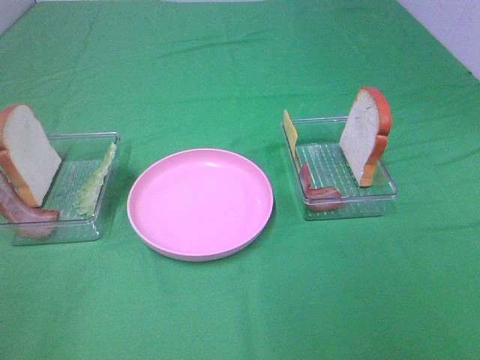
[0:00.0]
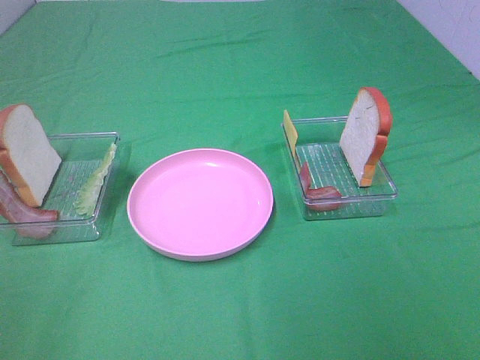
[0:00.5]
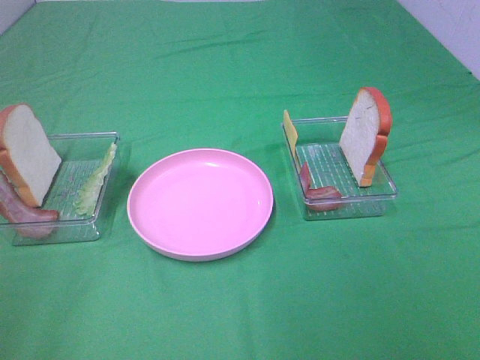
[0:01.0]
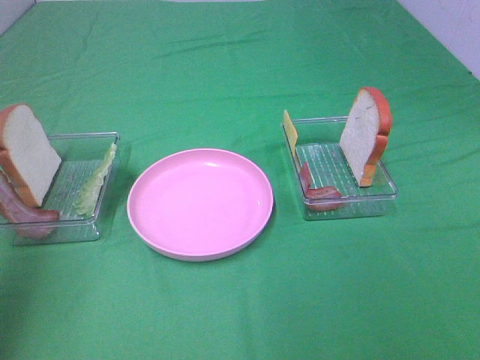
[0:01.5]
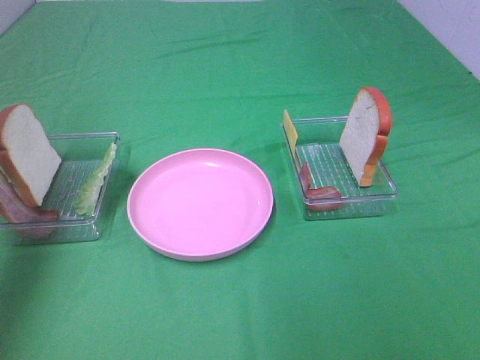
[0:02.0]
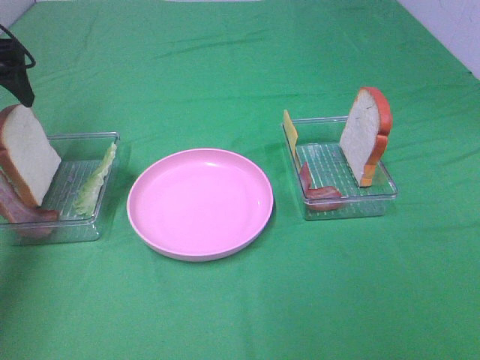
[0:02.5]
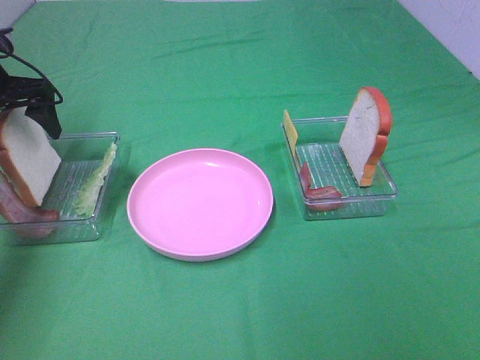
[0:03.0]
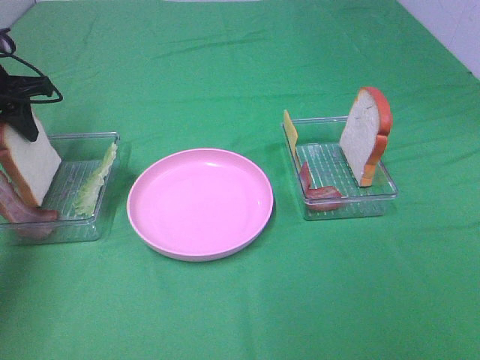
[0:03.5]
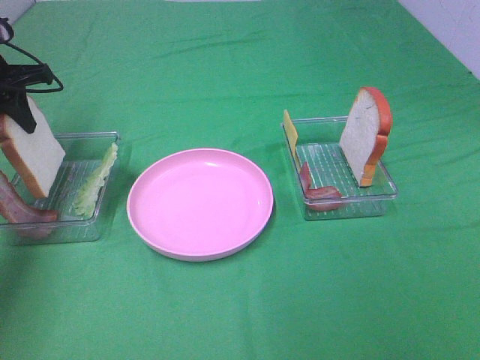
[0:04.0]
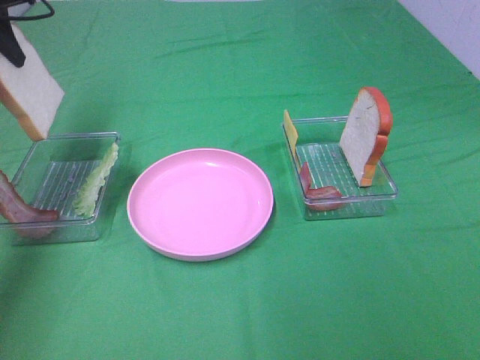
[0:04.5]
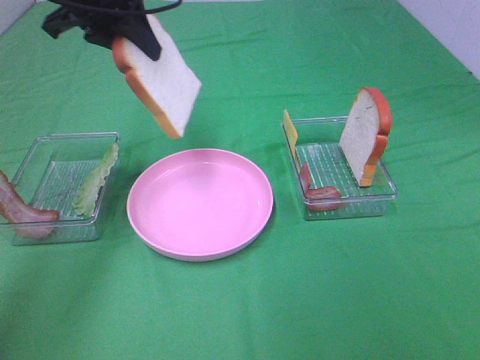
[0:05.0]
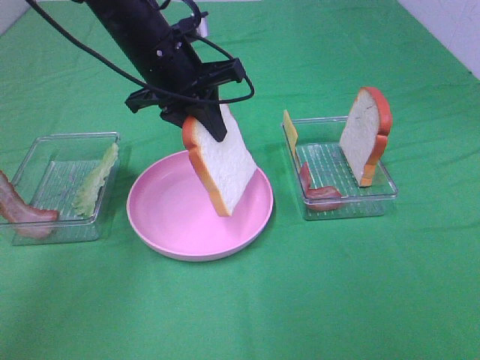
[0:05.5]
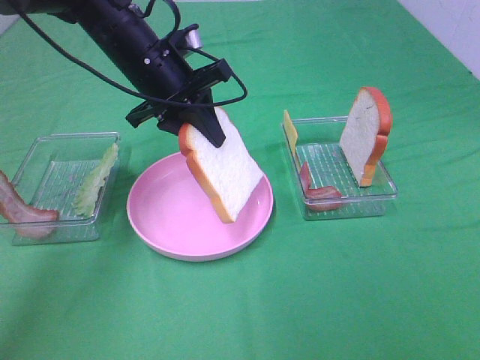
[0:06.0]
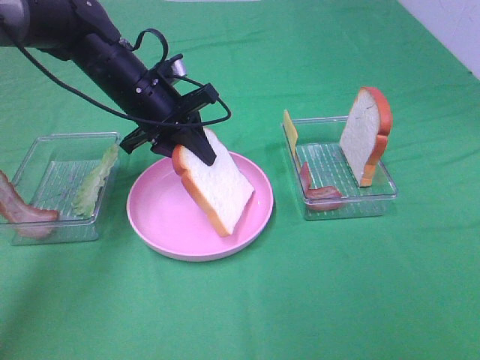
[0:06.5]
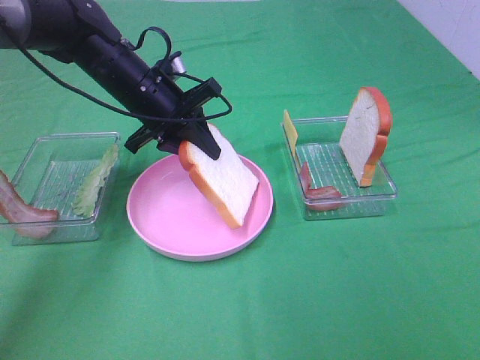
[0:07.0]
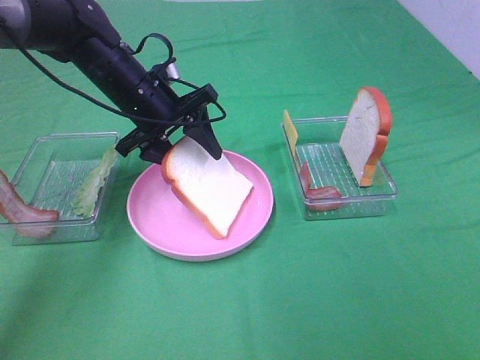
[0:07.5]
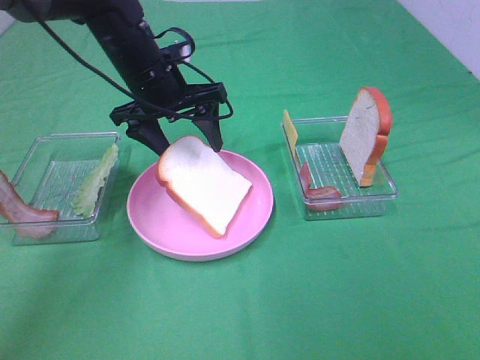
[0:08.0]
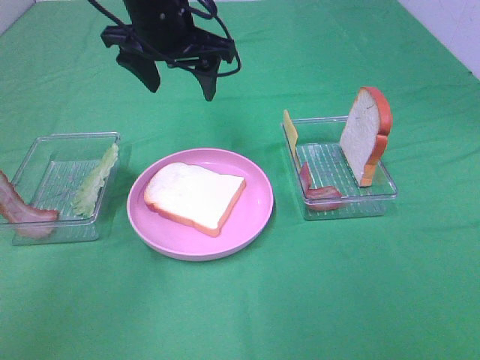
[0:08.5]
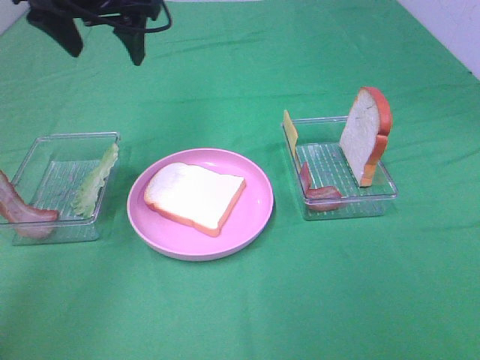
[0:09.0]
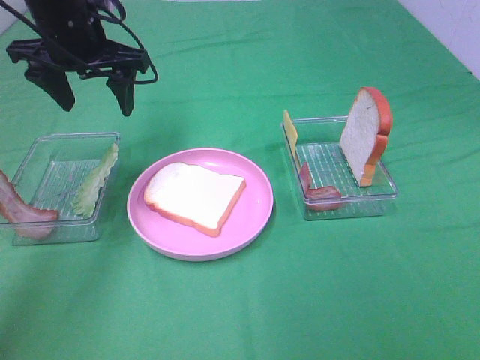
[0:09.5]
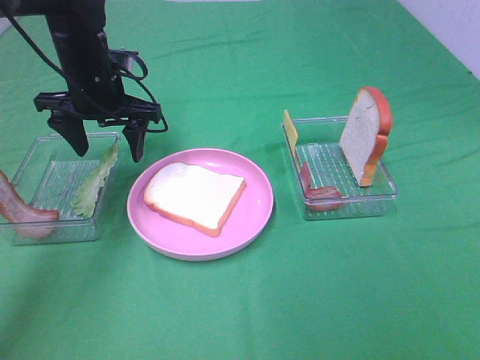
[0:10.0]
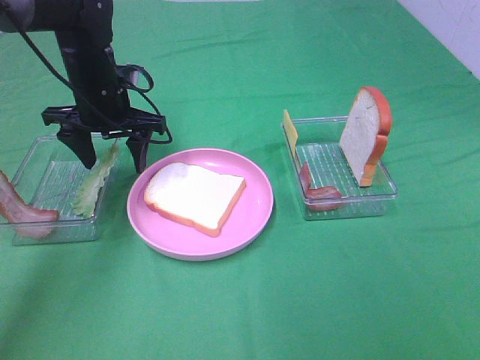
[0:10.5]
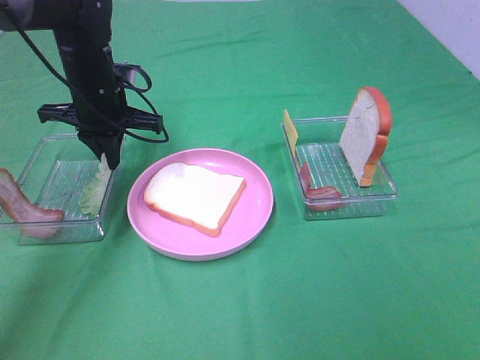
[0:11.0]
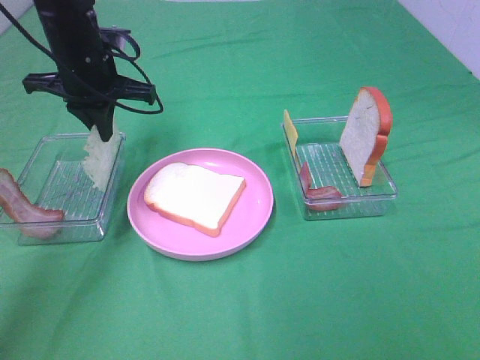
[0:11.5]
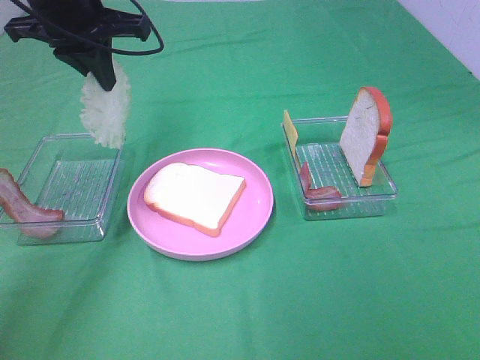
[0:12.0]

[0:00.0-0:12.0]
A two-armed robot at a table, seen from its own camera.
Task of the whole recording: Make sandwiches.
Step, 0:00.0 to 0:03.5: Left hand:grab the bread slice.
Step, 0:04.0 to 0:08.0: Left hand:place the bread slice on the plate.
Step, 0:08.5 to 0:11.0: Left hand:grab the lettuce slice.
0:00.0 to 0:02.0: The left gripper is displaced forward by roughly 30 cm.
0:02.0 to 0:04.0: The left gripper is displaced forward and downward by approximately 20 cm, and closes up.
0:04.0 to 0:06.0: The left gripper goes roughly 20 cm to the right.
0:06.0 to 0:08.0: The left gripper opens.
0:08.0 to 0:10.0: The left gripper travels to the left by roughly 10 cm, and travels upward and back again, approximately 10 cm each way.
0:10.0 to 0:12.0: The left gripper is displaced upward by some 10 cm, and closes up.

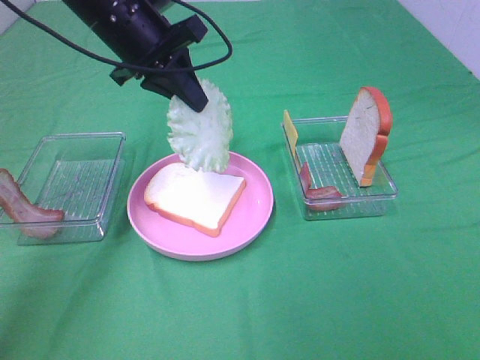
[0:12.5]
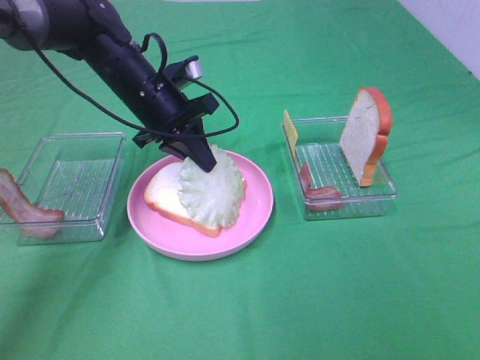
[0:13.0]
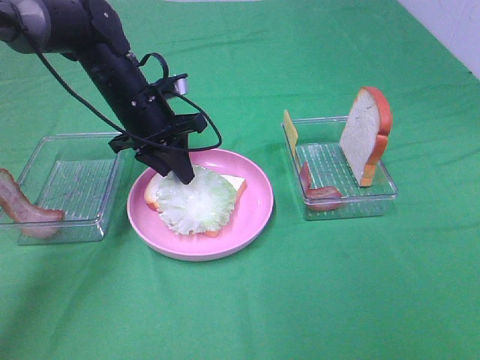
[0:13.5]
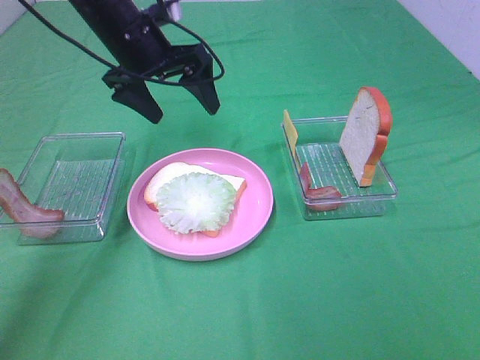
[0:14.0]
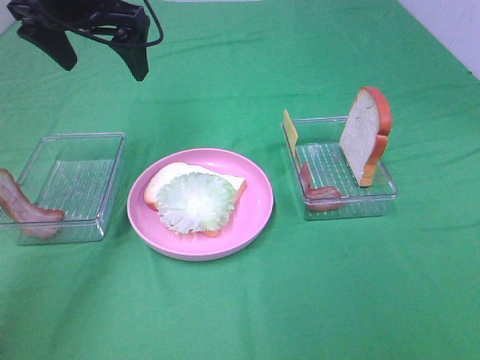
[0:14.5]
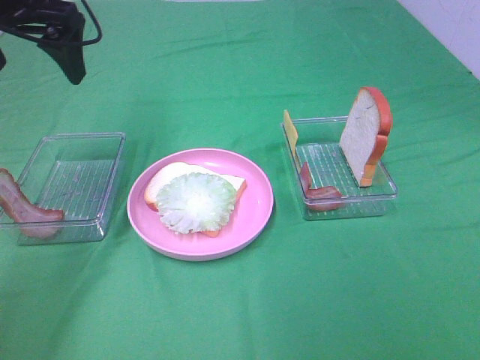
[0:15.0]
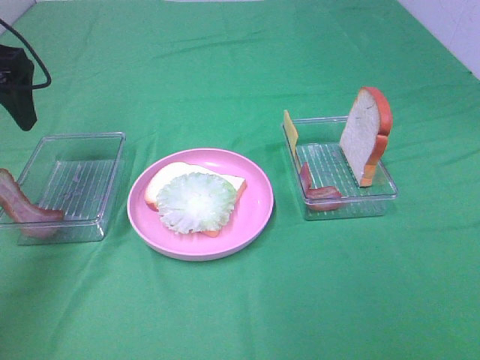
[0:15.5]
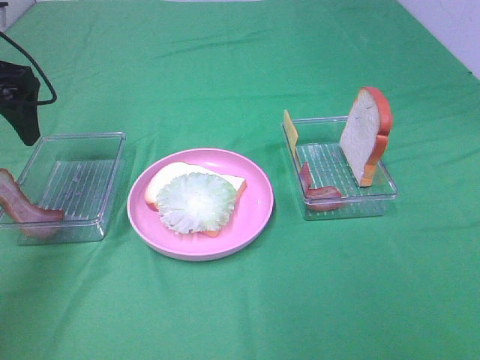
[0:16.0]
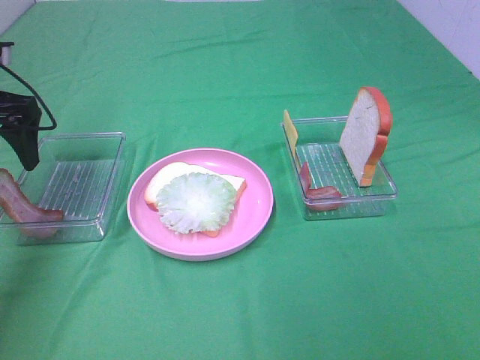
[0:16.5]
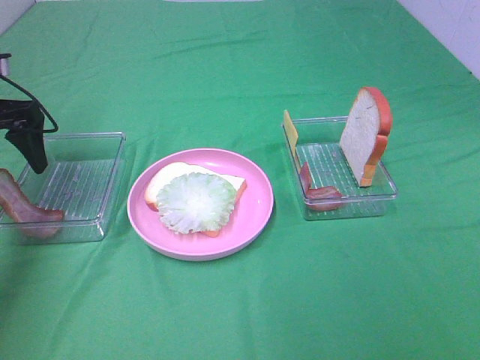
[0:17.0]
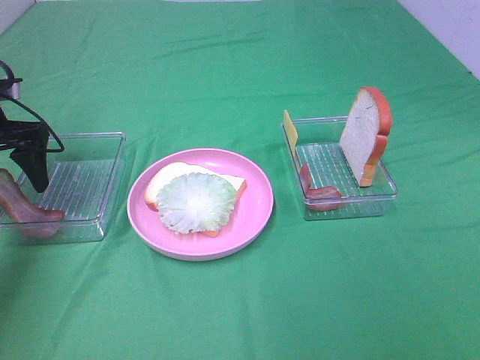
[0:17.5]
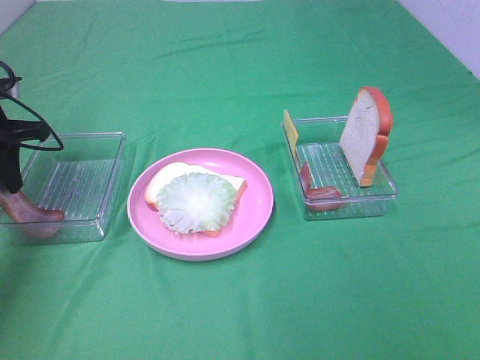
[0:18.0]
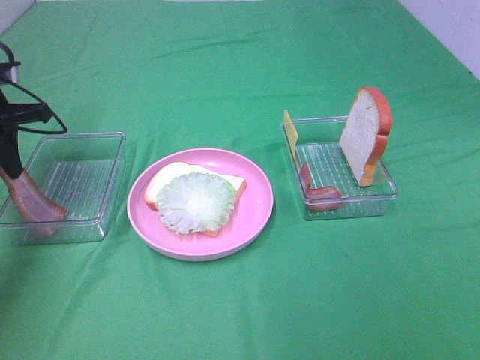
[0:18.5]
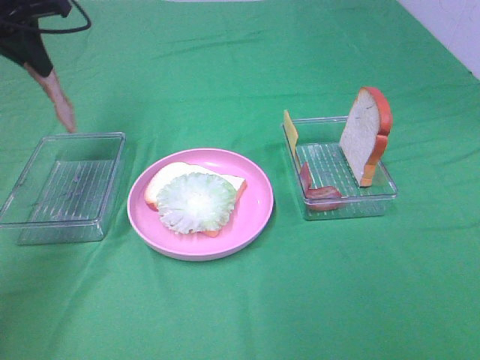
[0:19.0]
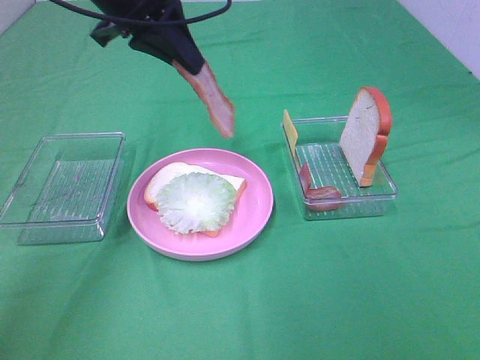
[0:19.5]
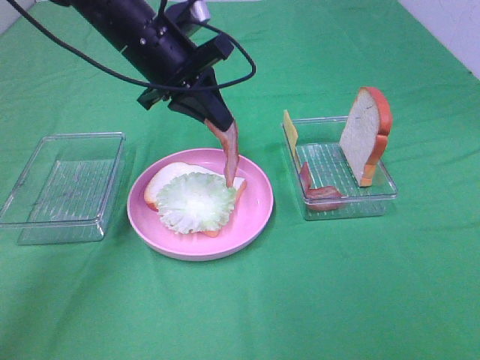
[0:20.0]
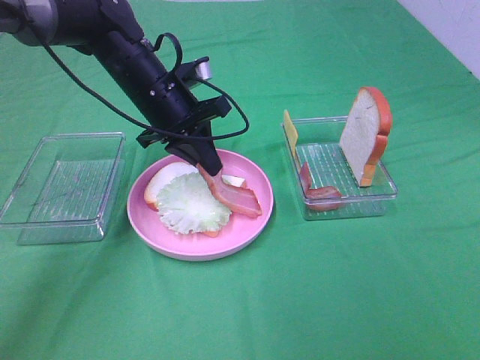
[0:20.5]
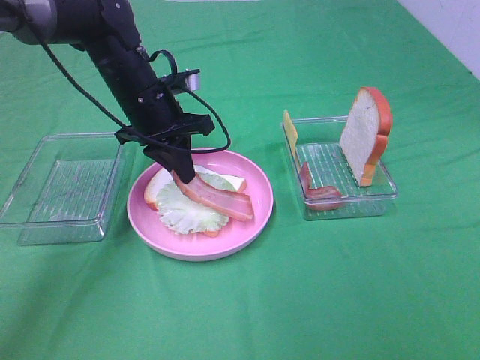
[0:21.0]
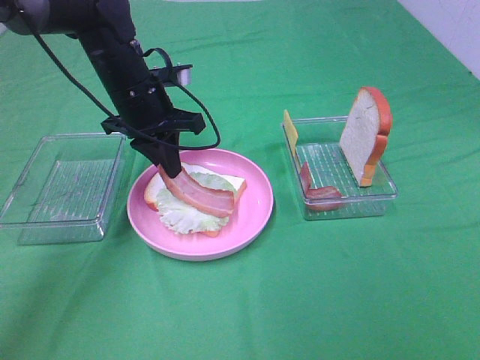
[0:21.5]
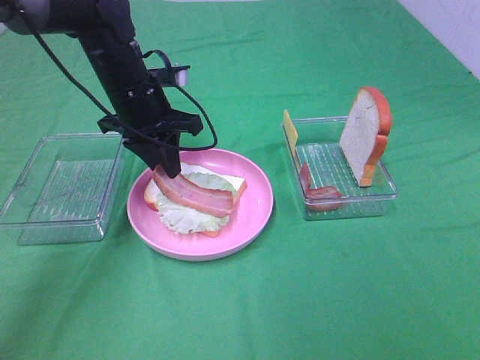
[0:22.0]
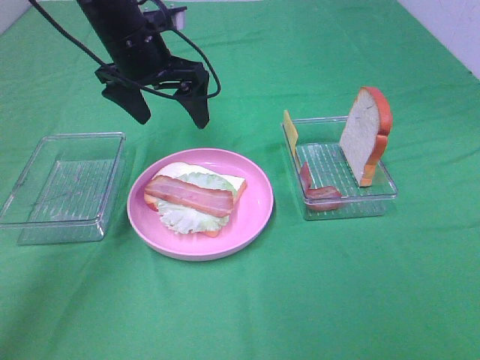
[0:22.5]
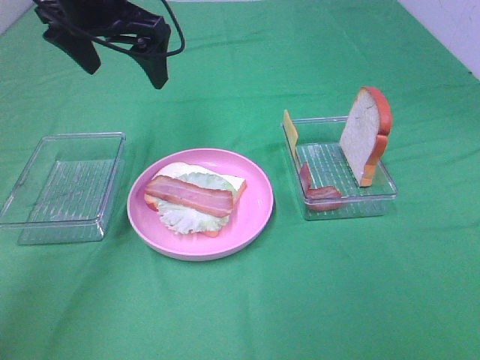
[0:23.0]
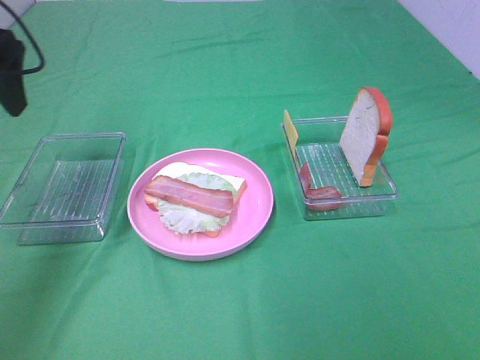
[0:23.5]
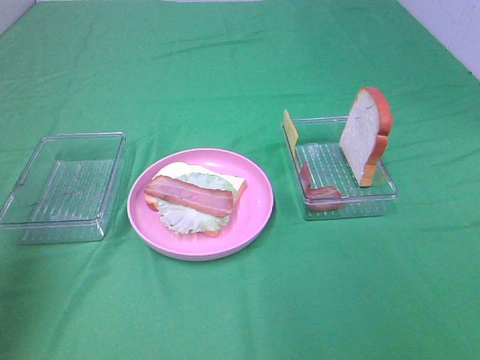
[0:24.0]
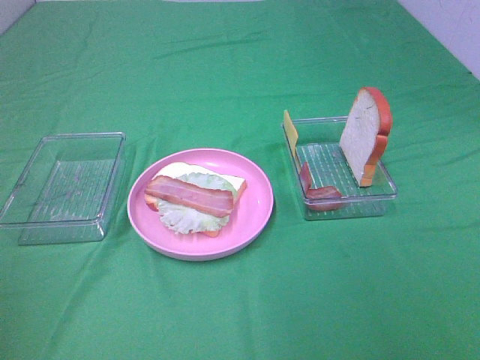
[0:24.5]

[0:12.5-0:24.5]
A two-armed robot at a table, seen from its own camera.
Task of the whole recording: Make sandwiches.
Step, 0:14.0 to 0:18.0: Left hand:grab the bacon.
Step, 0:18.5 to 0:22.0: Left hand:place bacon on lettuce slice.
0:12.5 to 0:14.5: The left gripper shifts about 10 cm upward and to the left, and opens its fingers.
0:14.5 to 0:16.5: The left gripper goes some 15 cm to the left and downward.
0:16.5 to 0:18.5: The left gripper closes up.
0:18.5 to 0:20.5: The left gripper is displaced to the right by some 20 cm.
0:20.5 to 0:22.5: The left gripper moves upward, roughly 5 cm, and opens up.
0:22.5 to 0:24.5: The left gripper travels backward and to the left by approximately 40 cm.

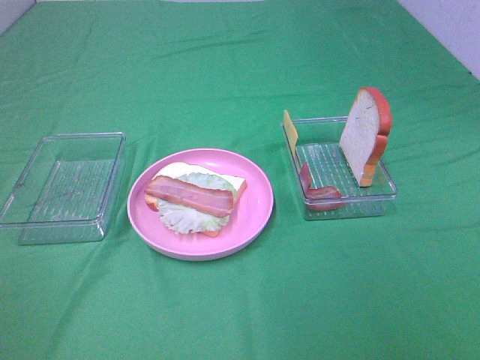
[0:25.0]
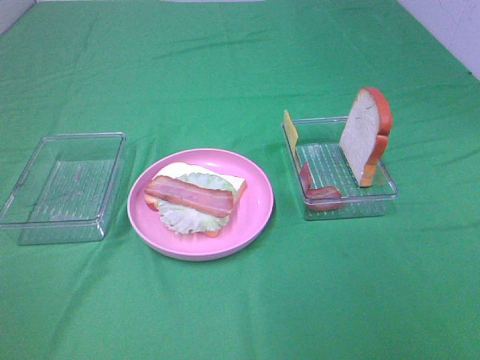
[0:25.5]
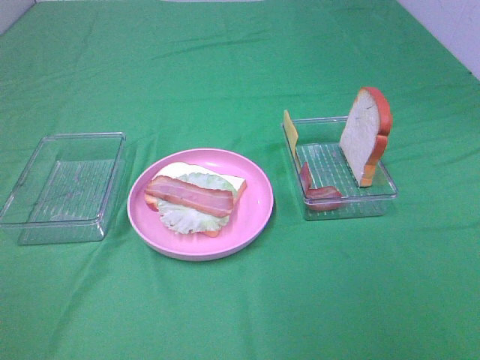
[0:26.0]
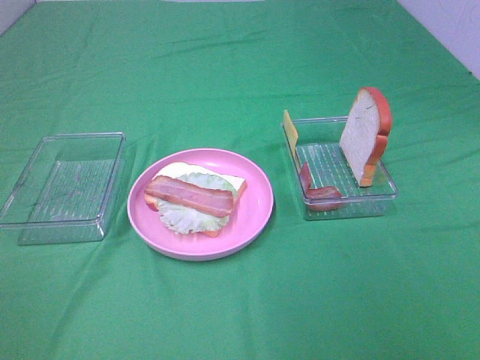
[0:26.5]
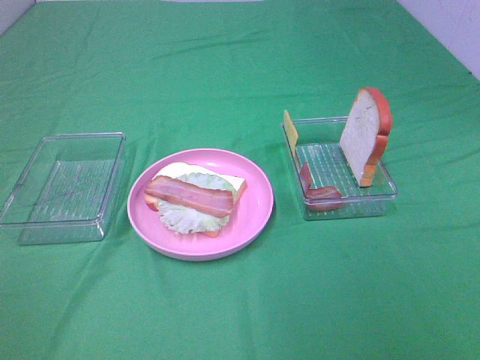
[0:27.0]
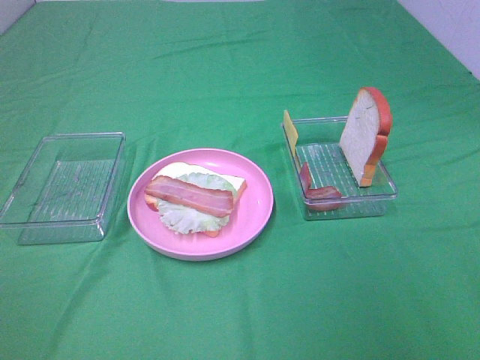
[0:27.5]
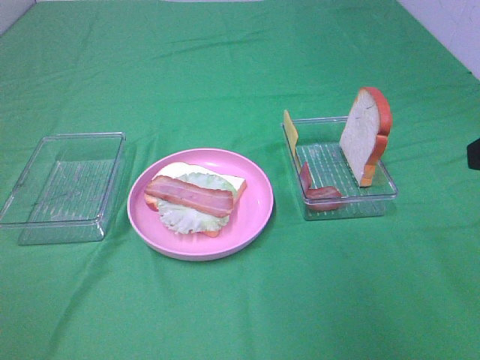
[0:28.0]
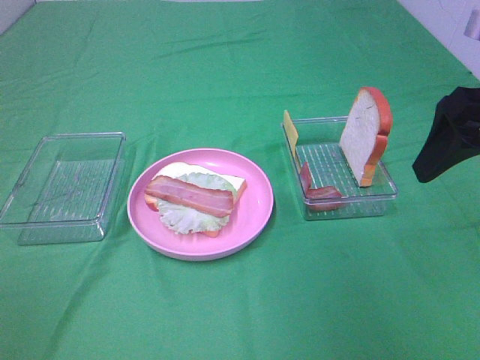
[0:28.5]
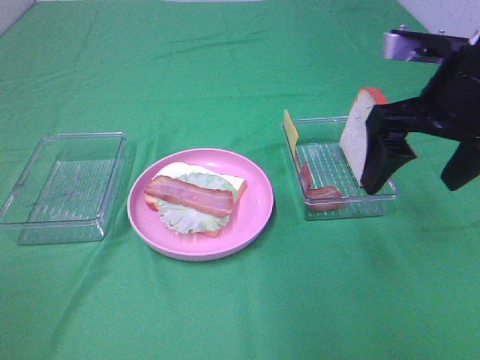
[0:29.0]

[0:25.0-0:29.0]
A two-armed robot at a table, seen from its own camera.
Task of the whole recording: Make sandwiches.
0:27.0 to 0:29.0: The right gripper moves forward, roughly 30 cm.
